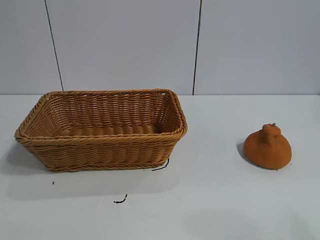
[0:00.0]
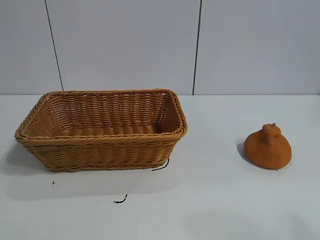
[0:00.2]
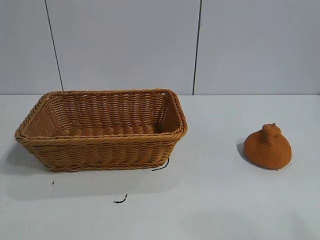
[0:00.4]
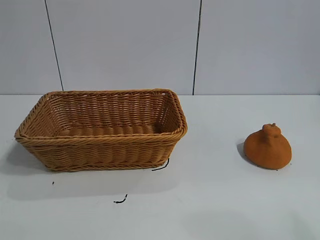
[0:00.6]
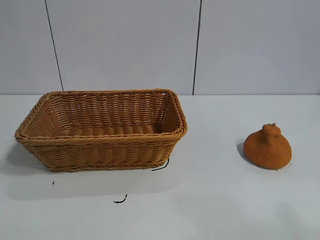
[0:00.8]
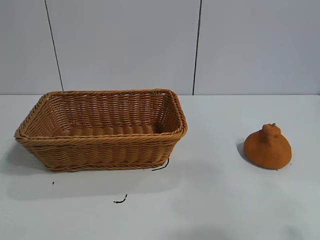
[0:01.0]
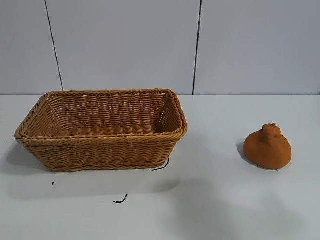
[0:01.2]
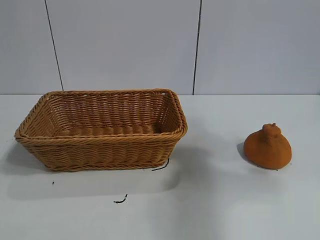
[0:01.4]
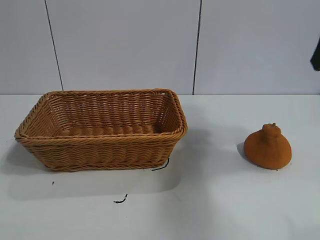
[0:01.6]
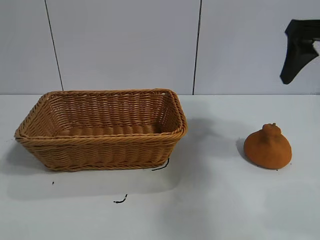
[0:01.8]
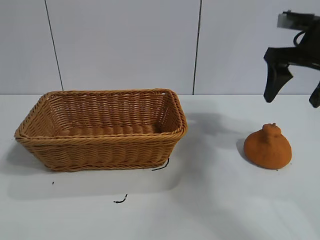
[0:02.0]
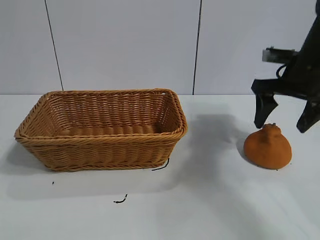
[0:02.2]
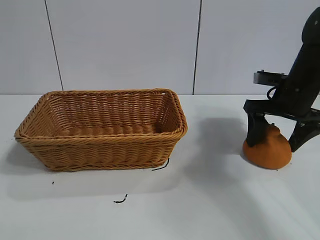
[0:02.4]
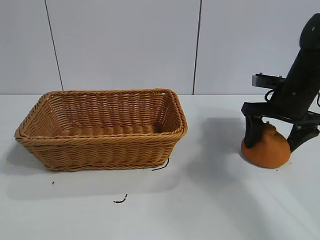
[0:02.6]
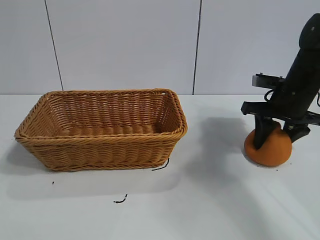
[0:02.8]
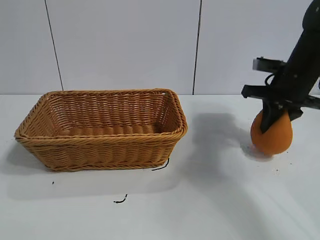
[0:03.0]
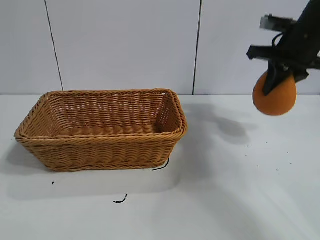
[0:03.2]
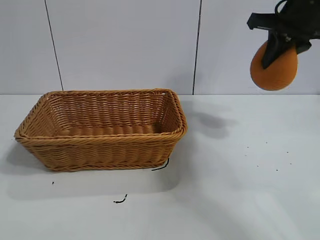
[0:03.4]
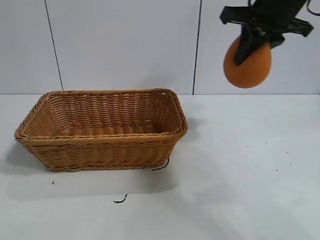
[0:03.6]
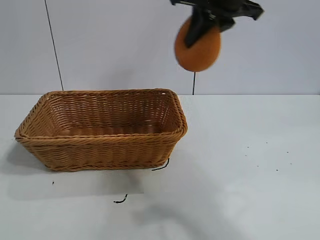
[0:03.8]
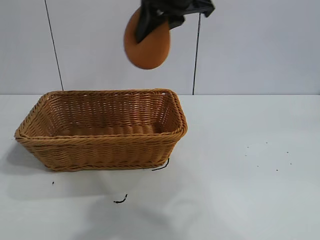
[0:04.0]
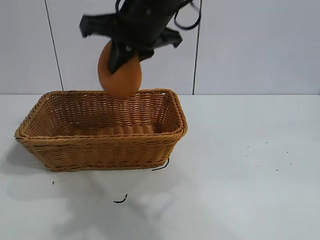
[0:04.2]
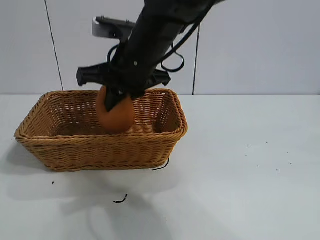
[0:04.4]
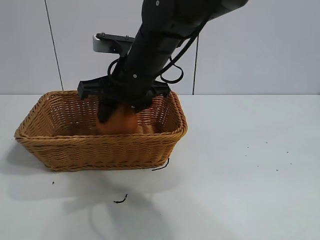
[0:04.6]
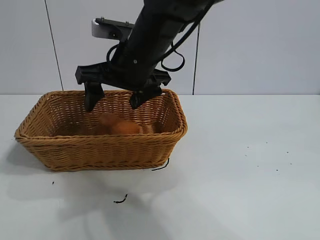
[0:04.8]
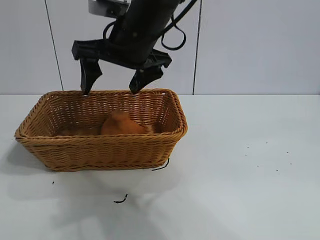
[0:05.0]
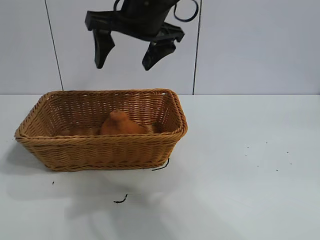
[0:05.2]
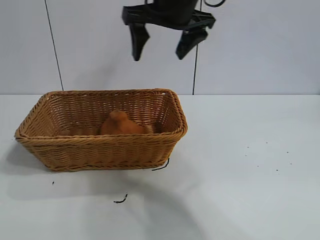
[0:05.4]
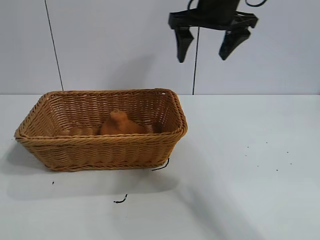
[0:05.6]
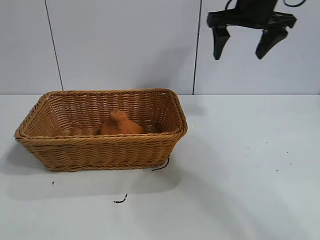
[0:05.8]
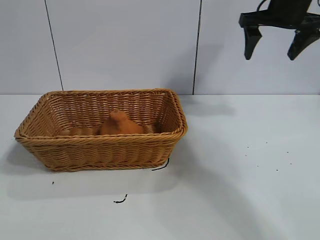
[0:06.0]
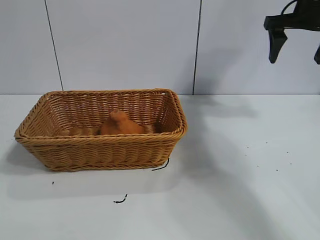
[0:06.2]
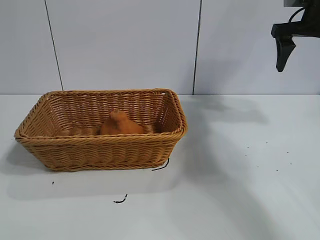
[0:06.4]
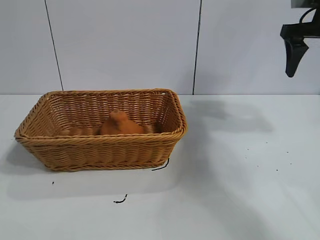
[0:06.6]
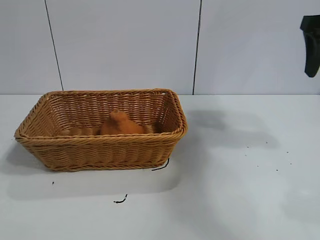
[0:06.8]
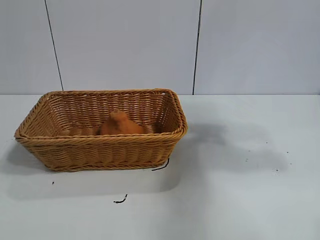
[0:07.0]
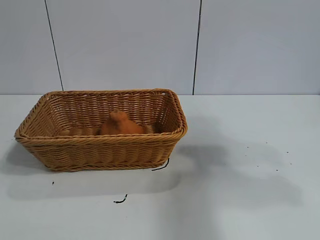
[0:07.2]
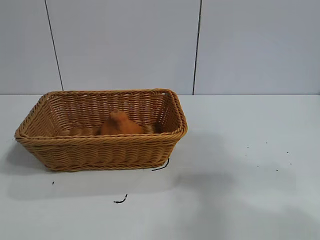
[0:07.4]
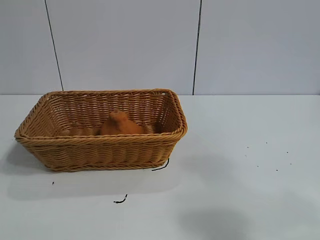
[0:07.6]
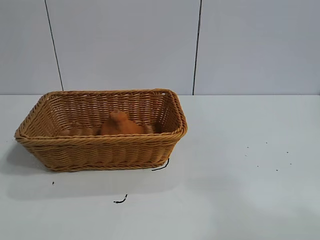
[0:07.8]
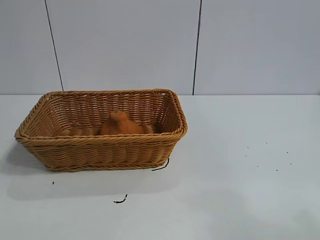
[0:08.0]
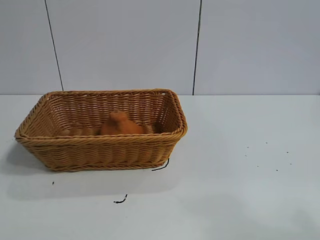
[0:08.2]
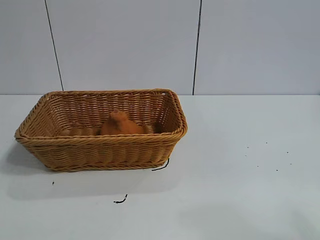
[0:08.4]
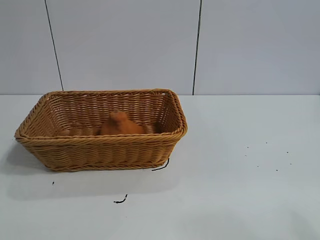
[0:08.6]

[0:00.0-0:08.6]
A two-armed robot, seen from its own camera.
Task of the whole recording: pick up the orange and put it into the basket.
Step, 0:00.8 to 0:02.8: Grasp the orange with right gripper.
Step, 0:03.2 to 0:04.6: Place the orange in the basket with right gripper.
